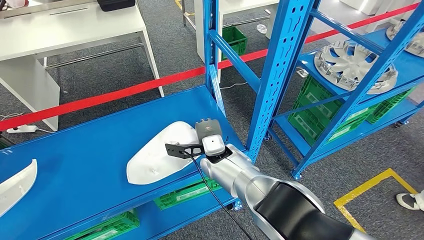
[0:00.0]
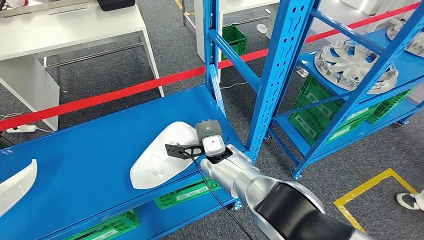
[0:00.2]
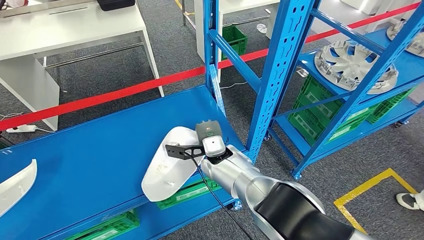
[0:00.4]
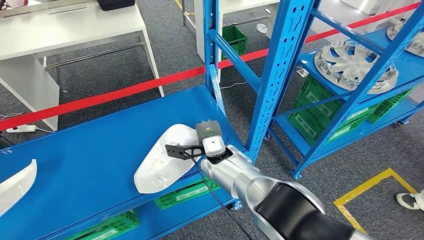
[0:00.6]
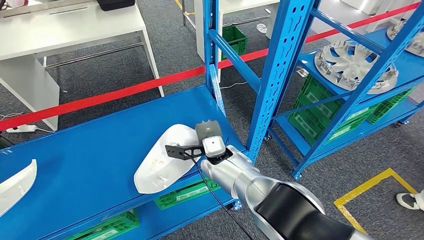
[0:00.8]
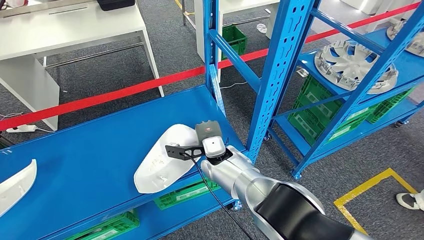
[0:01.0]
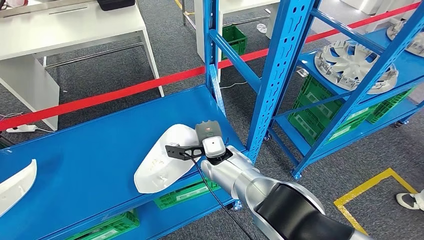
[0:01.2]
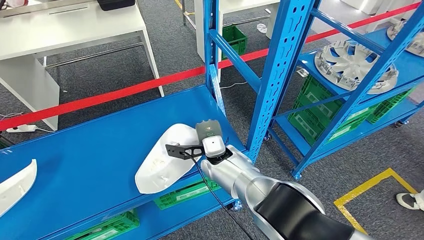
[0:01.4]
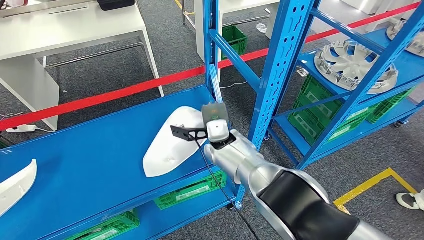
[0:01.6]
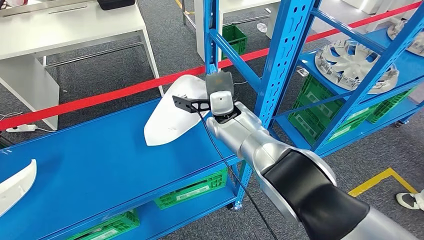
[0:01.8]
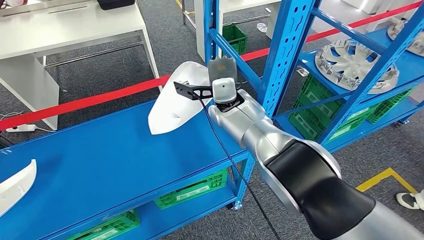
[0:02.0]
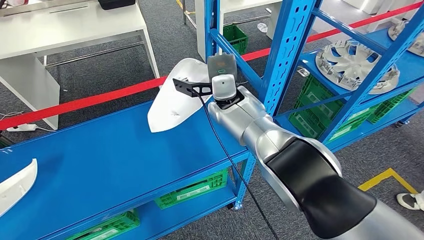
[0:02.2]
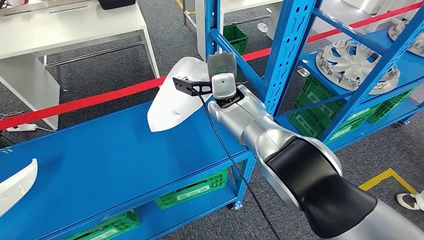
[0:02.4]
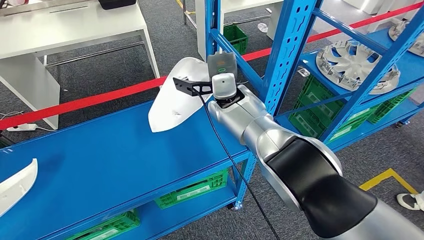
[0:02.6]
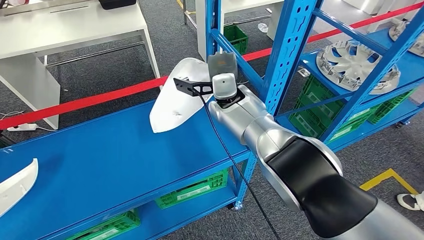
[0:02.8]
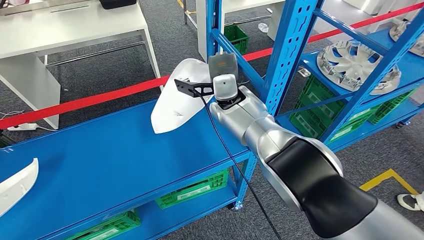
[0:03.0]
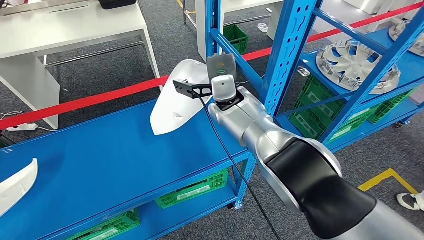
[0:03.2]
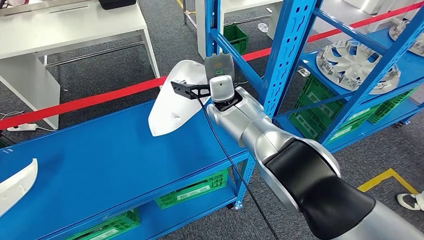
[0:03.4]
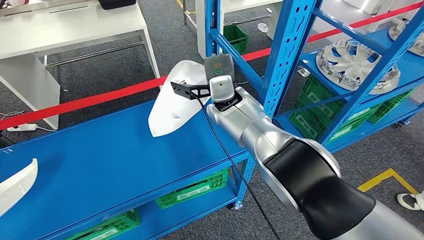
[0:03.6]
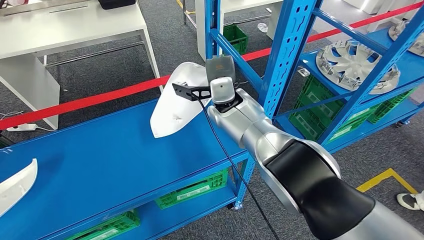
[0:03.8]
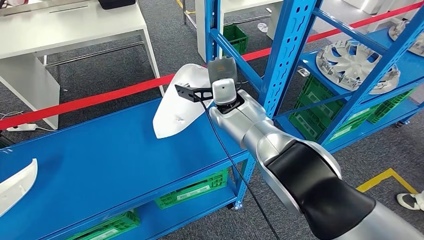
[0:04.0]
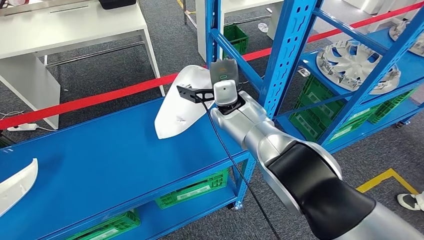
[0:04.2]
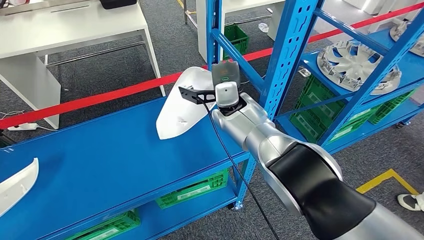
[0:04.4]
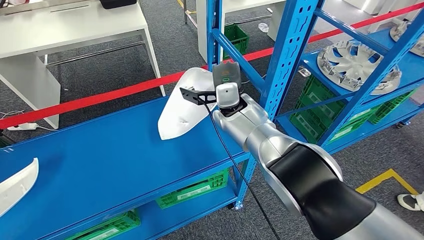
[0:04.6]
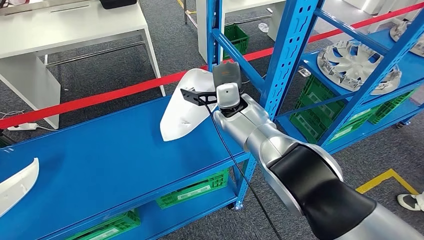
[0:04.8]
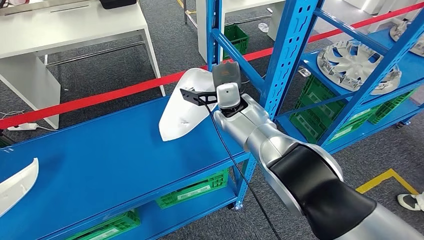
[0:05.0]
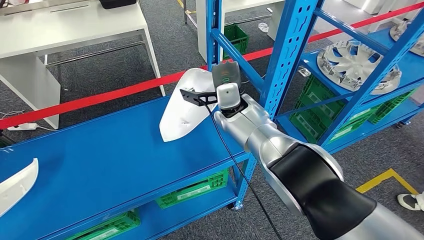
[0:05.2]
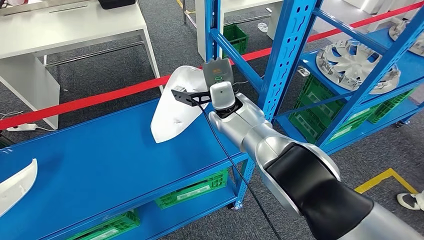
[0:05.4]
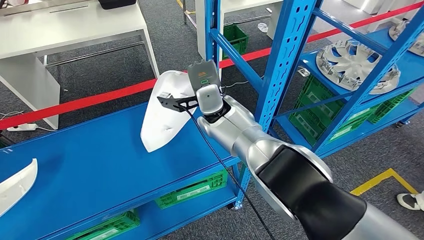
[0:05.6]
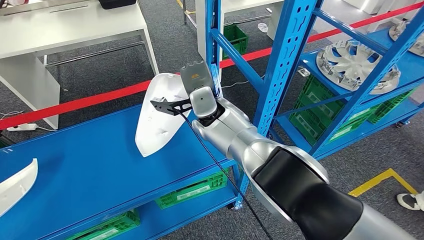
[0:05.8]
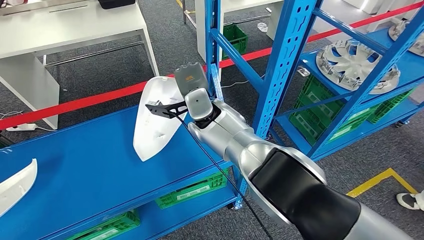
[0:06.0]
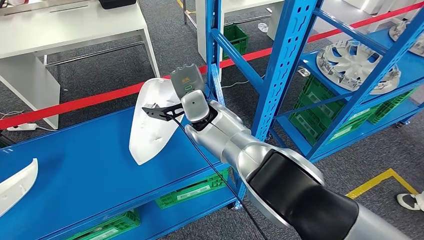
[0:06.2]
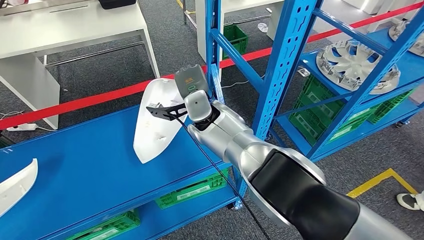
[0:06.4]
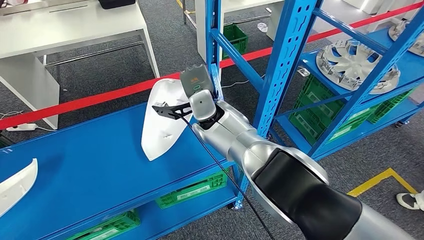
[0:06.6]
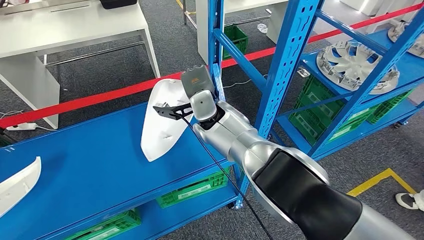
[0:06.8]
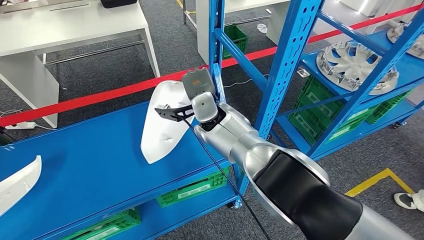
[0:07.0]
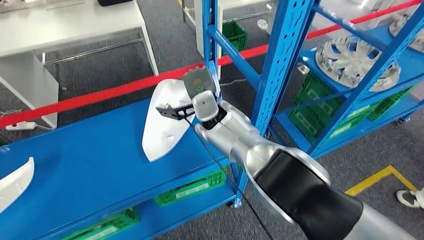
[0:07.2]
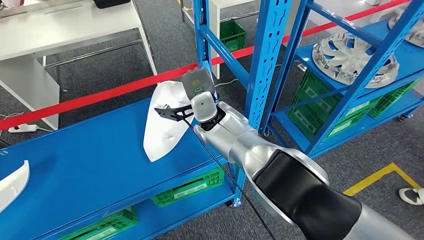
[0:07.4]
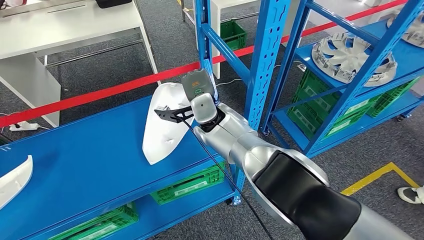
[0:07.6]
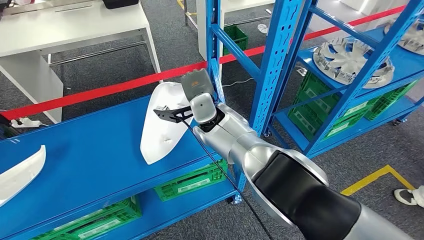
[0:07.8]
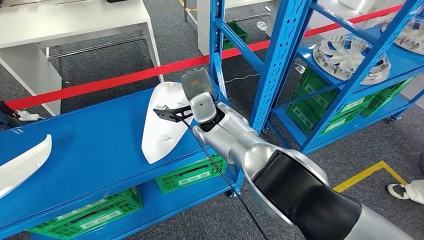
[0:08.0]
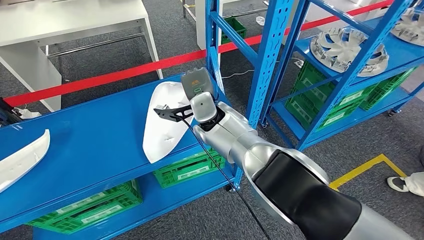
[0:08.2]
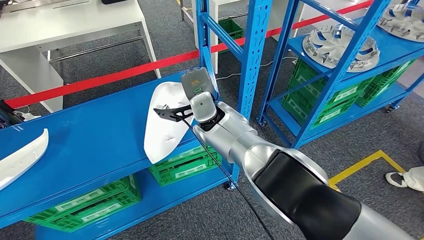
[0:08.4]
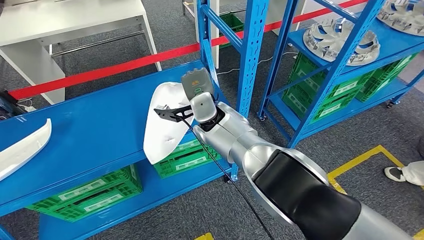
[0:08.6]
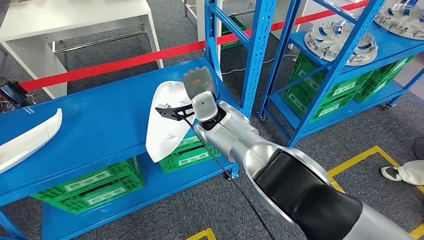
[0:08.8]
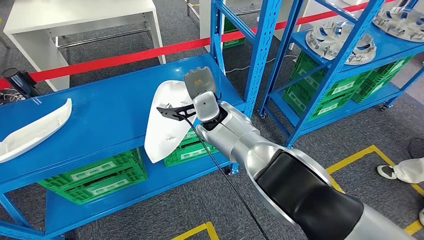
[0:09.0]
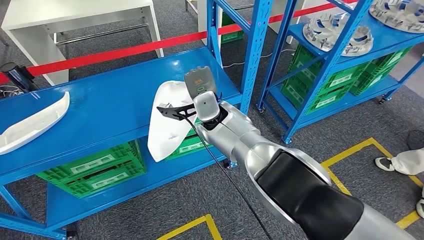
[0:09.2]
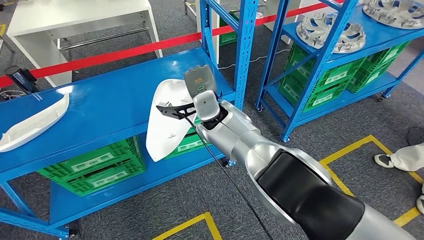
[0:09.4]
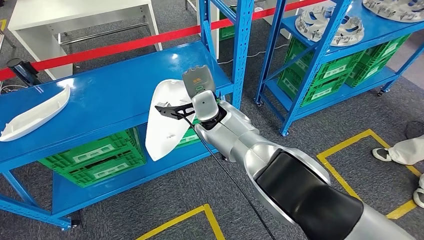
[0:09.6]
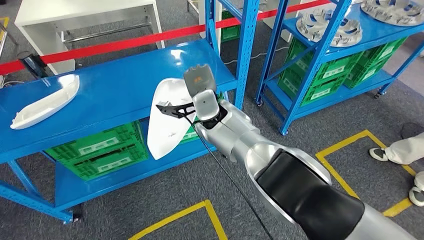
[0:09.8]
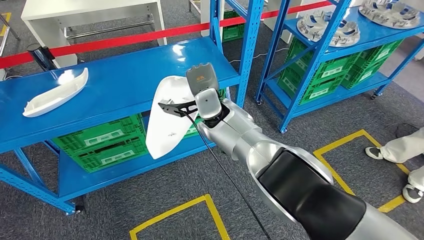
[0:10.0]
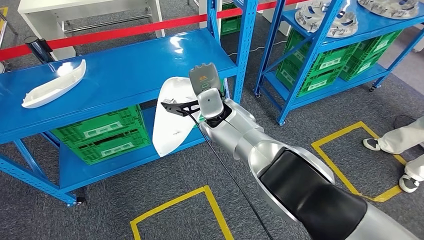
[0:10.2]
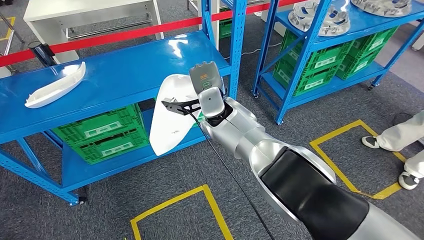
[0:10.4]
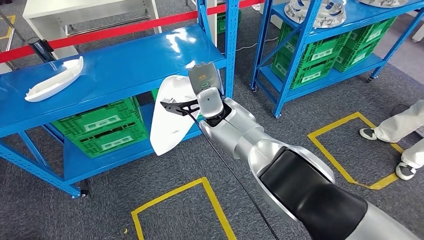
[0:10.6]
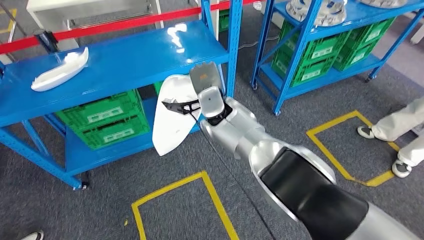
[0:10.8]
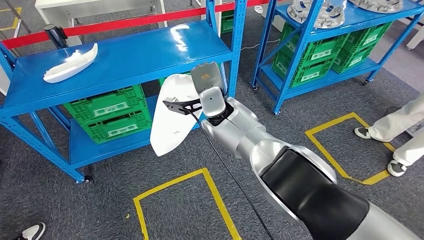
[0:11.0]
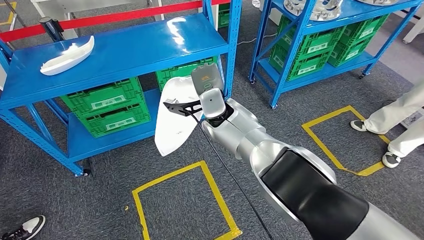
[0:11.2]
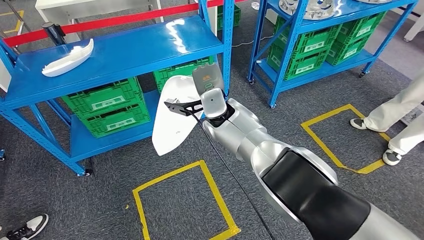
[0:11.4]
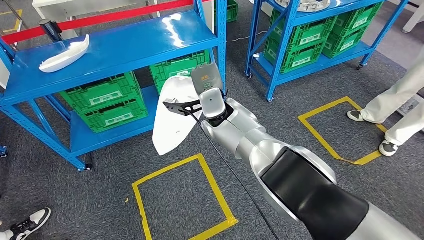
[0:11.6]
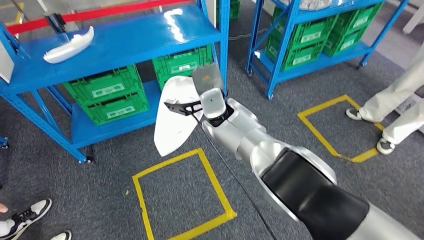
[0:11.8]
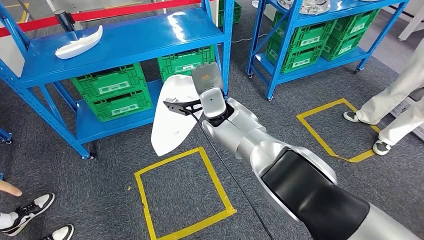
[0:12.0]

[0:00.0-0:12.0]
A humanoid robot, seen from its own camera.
0.0 to 1.6 s: The hands move only a little.
3.0 to 4.4 s: There are only small adjustments of the hands.

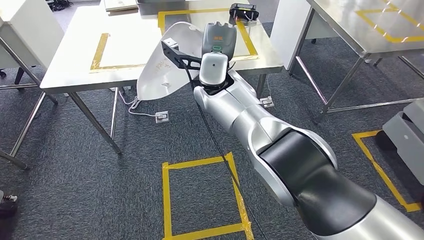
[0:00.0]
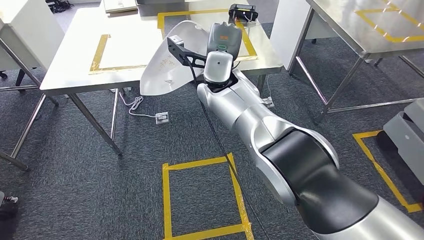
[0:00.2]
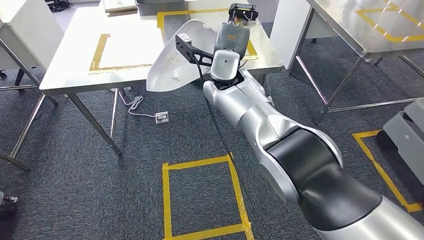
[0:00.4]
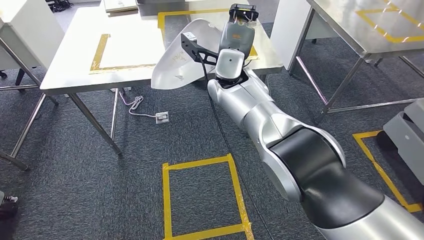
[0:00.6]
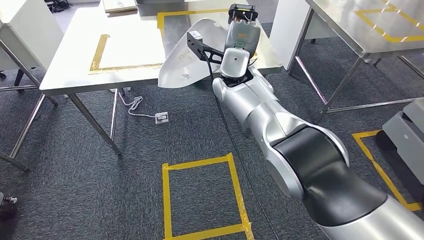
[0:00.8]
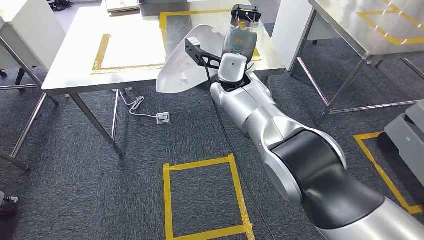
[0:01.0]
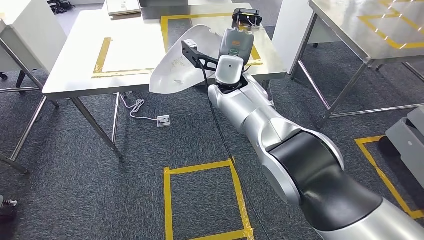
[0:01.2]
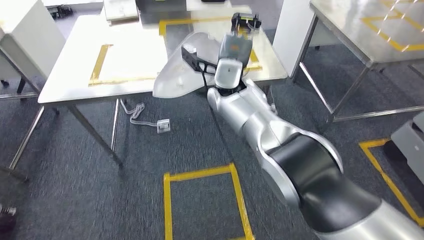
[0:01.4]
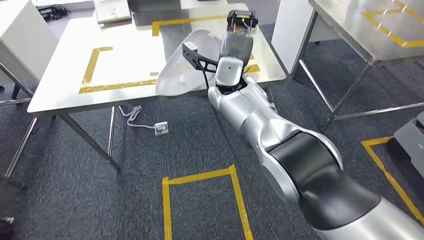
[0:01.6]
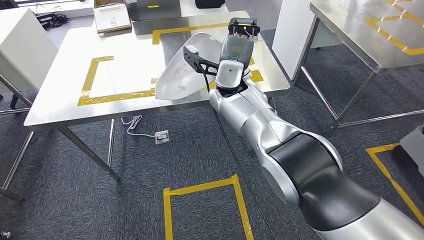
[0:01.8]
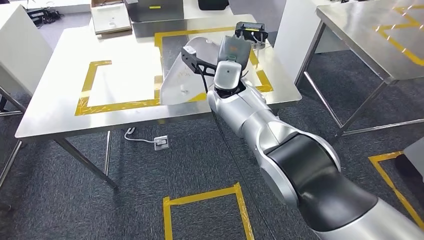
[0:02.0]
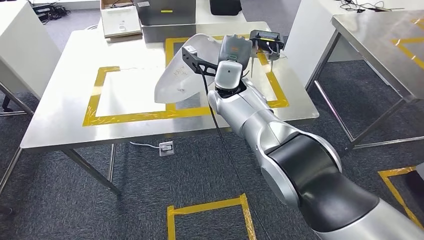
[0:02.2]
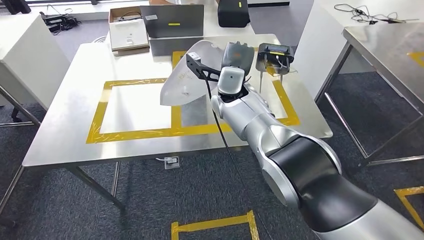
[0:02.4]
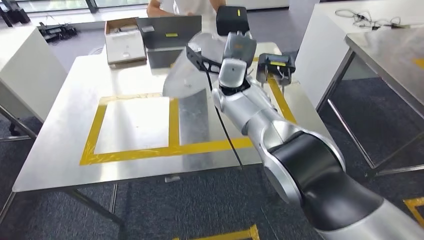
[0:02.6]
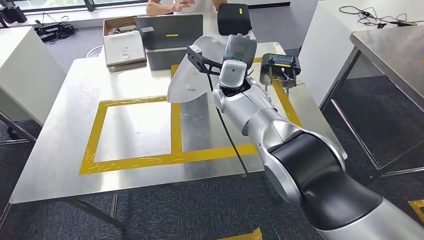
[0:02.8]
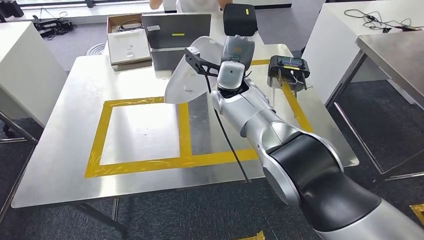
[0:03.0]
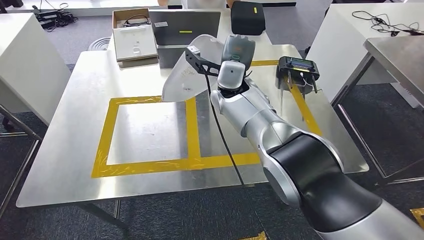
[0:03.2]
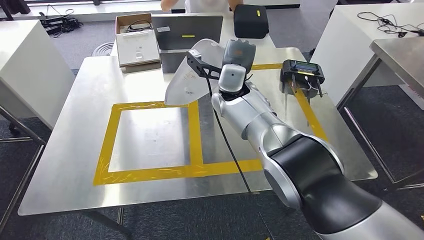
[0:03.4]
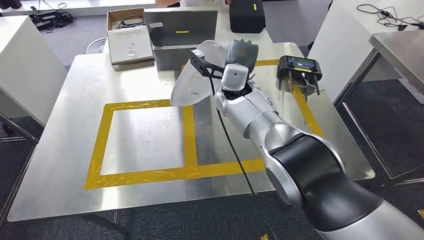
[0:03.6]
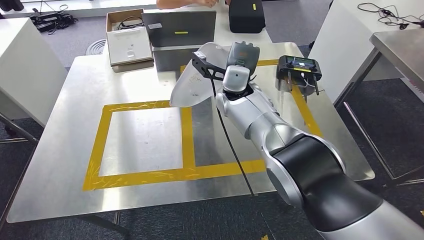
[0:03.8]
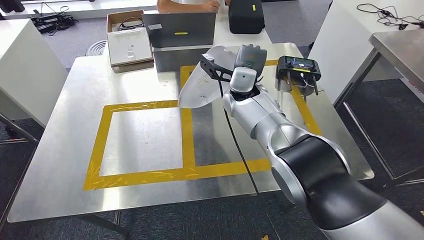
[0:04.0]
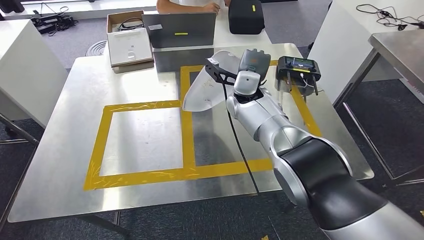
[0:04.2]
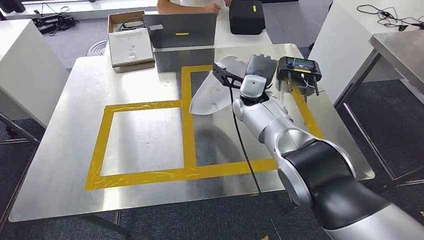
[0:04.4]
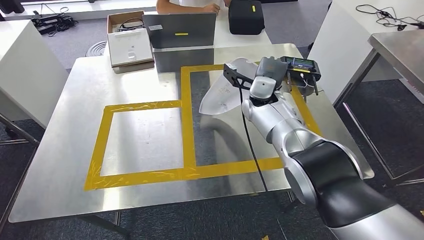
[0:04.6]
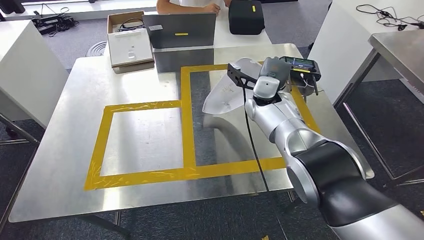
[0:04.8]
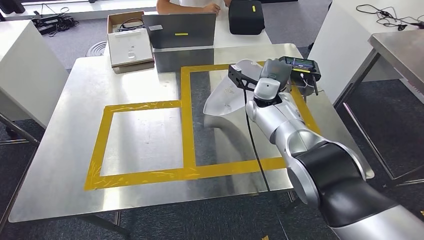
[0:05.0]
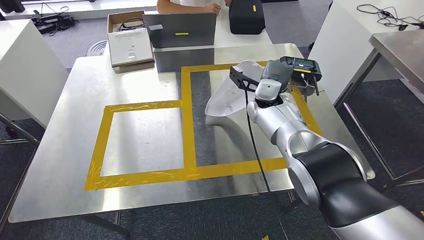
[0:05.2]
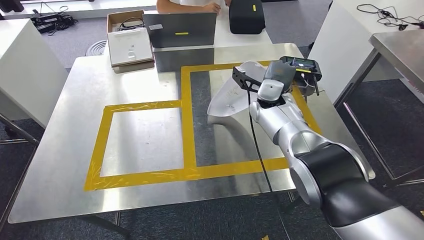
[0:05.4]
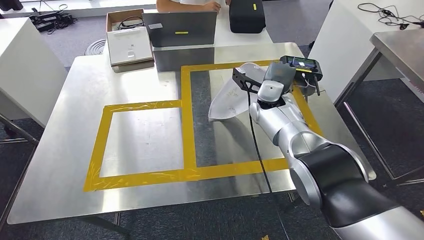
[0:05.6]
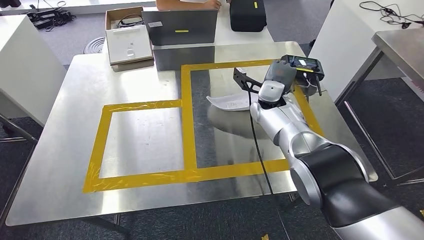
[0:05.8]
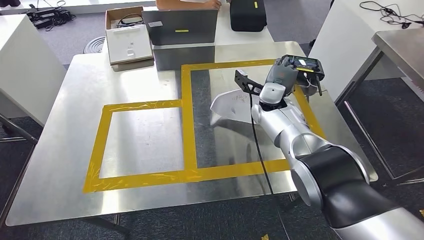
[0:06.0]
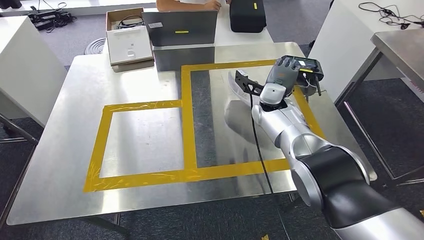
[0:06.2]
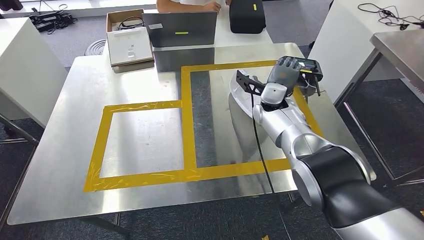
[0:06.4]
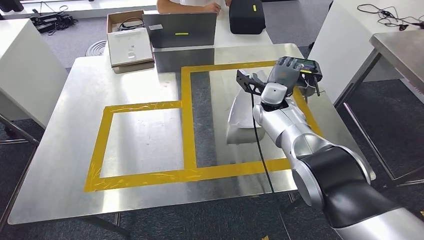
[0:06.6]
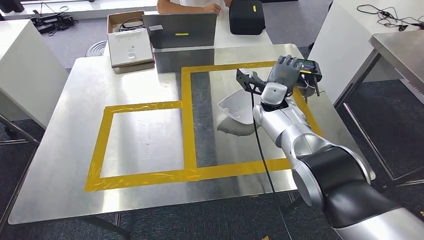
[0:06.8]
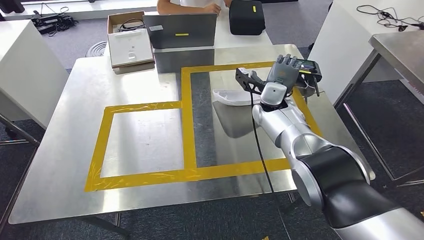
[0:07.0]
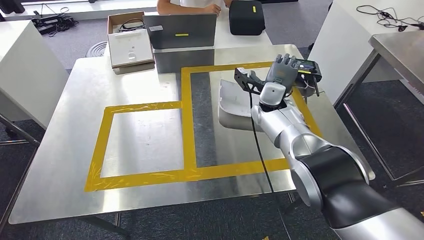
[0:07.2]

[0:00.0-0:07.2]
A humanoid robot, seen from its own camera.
Step, 0.0 to 6.4 s: Bring the small component to the front of the workbench.
5.8 to 7.2 s: Both hands stay about where they are.
